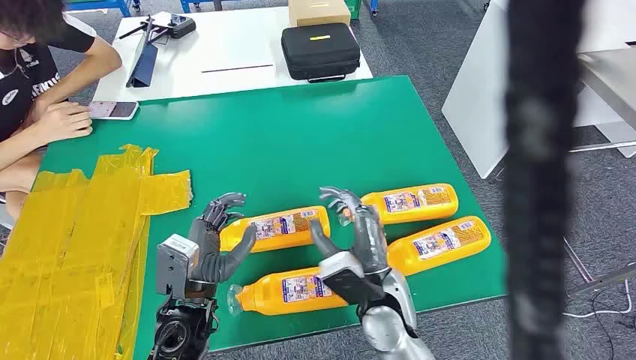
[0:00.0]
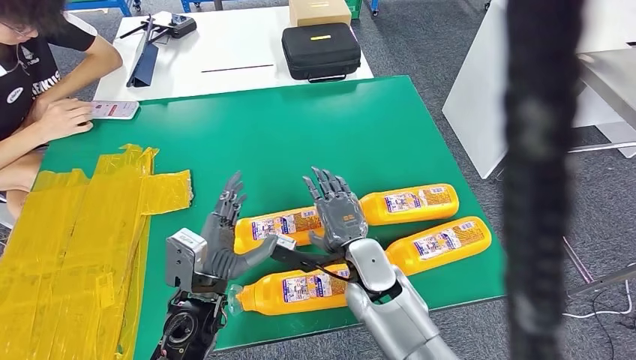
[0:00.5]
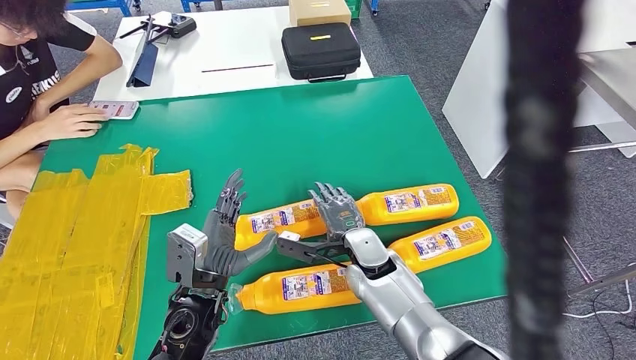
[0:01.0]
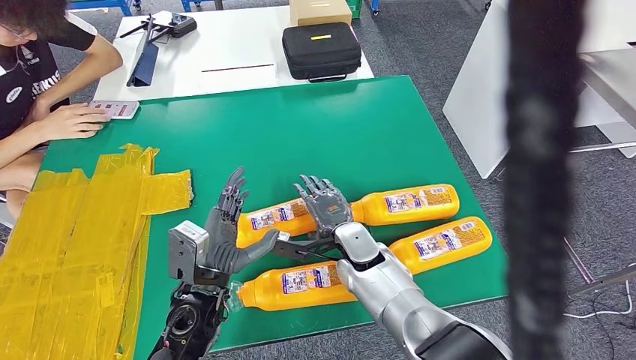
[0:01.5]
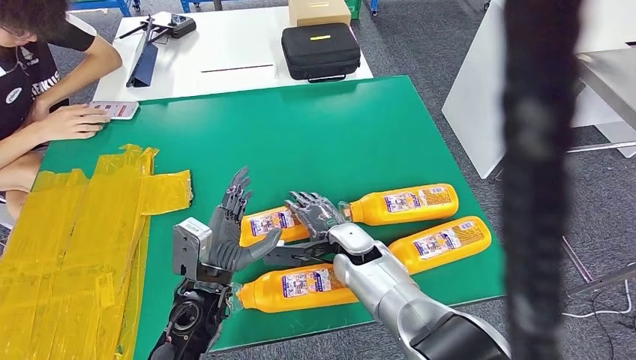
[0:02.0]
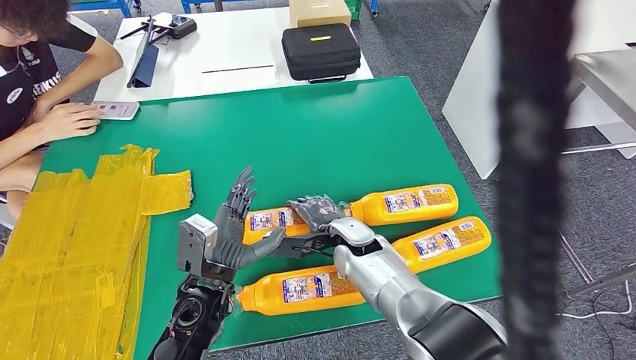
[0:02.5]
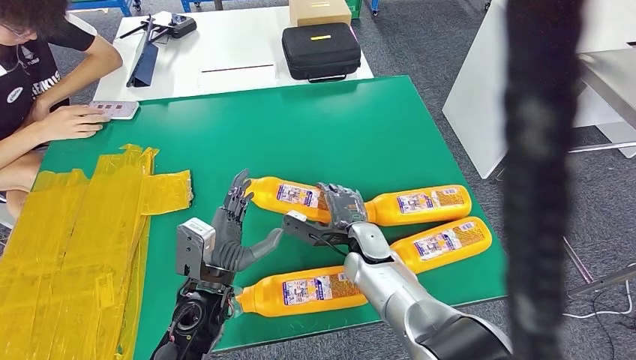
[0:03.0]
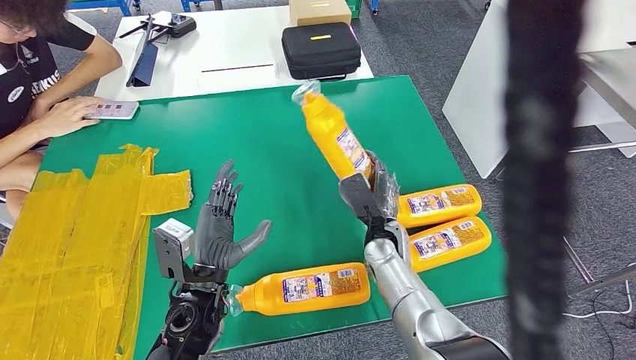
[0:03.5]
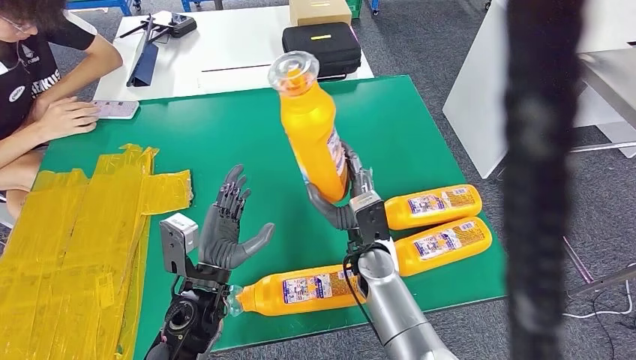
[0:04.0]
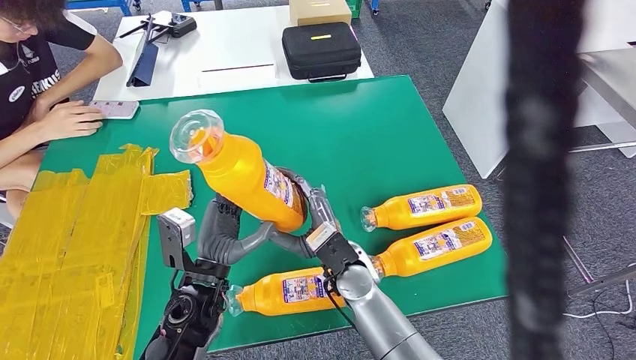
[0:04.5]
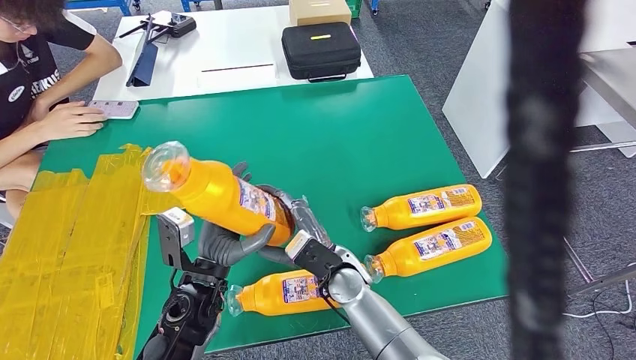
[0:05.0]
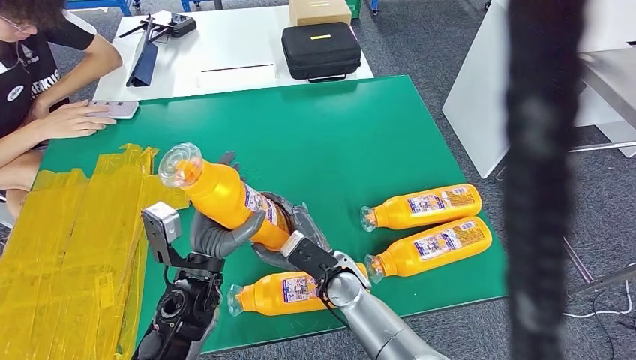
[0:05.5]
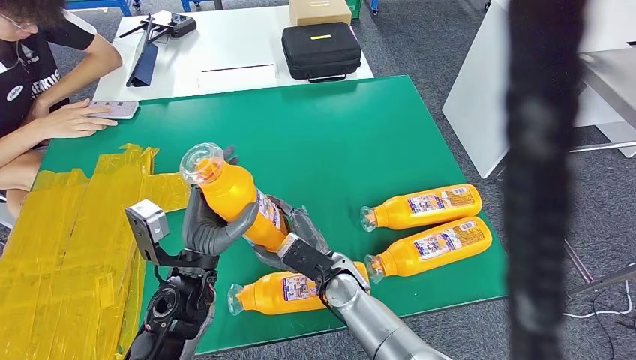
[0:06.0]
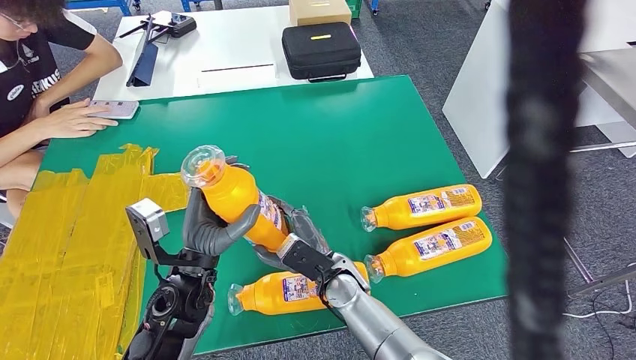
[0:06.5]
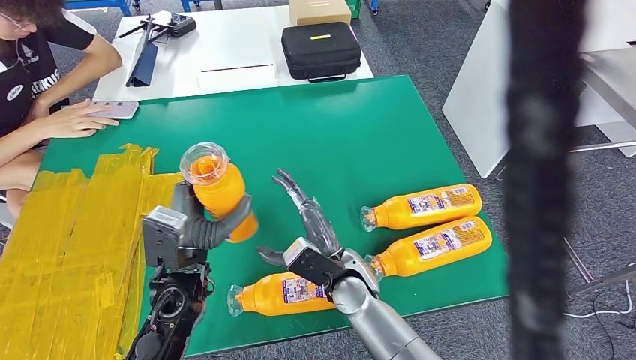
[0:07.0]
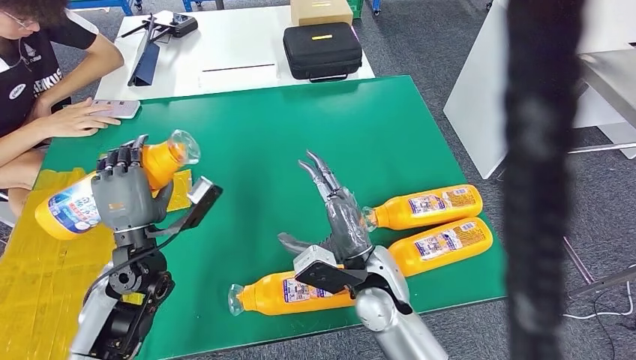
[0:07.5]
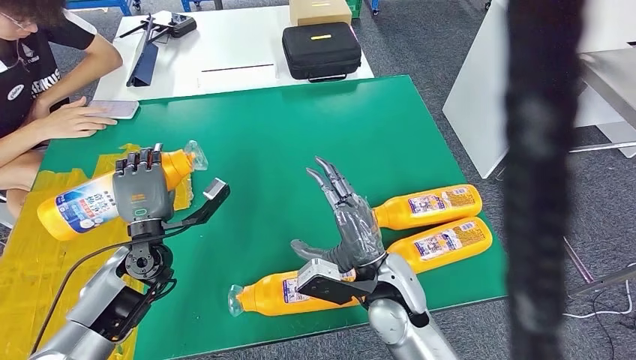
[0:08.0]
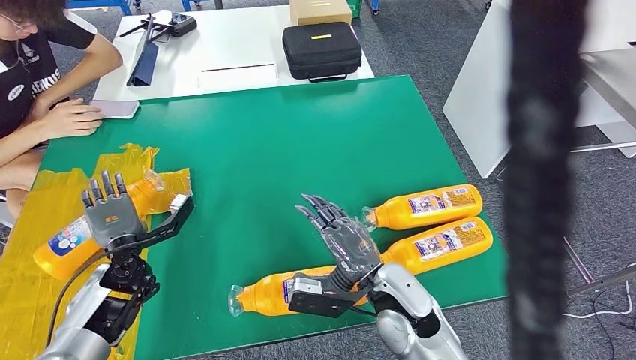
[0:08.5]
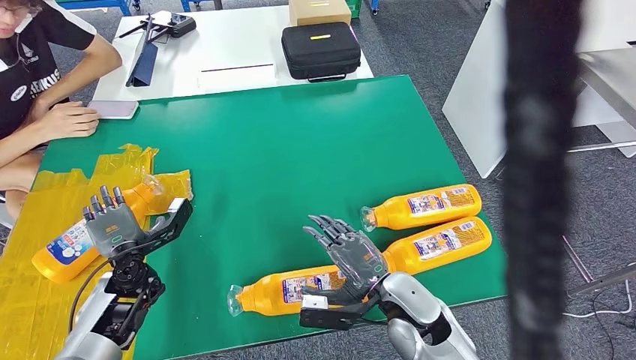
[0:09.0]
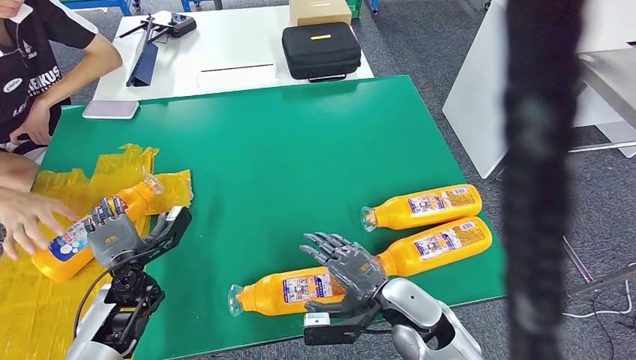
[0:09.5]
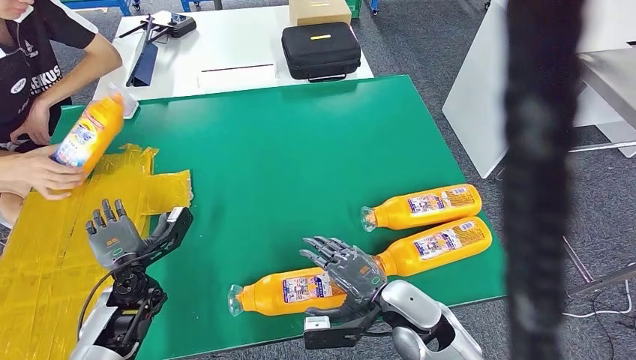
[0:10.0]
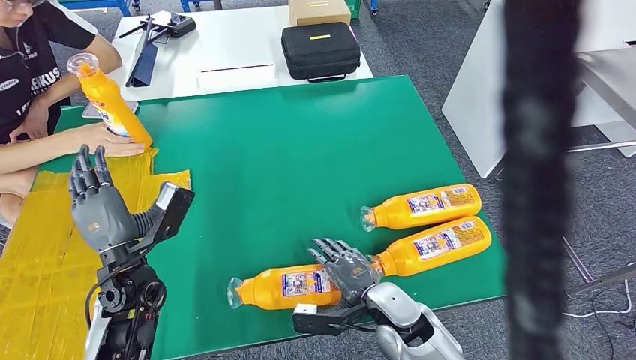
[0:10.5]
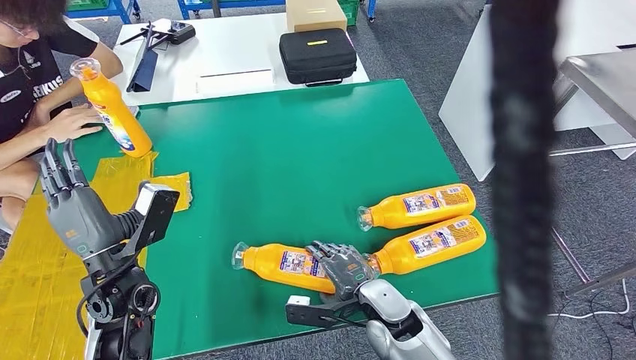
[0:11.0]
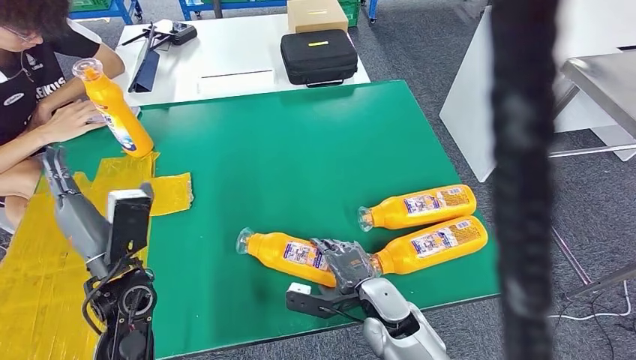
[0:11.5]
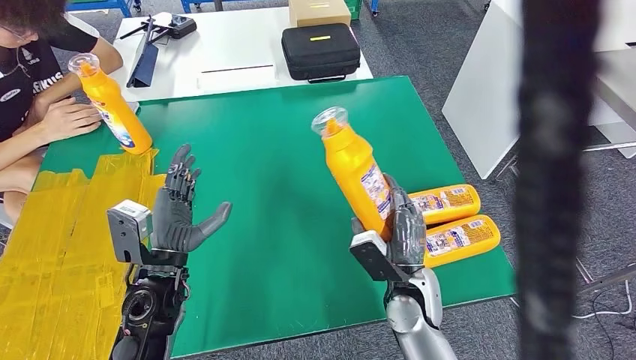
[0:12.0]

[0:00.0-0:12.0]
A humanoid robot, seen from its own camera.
Step, 0:00.0 to 0:04.0: Take the bottle from the table.
Step, 0:04.5 to 0:08.5: Flip the bottle to face forward.
0:02.0 to 0:04.0: The right hand shifts by roughly 5 cm.
0:04.0 to 0:06.0: The right hand travels to the left by about 5 cm.
0:06.0 to 0:08.0: The left hand is displaced to the left and forward by approximately 10 cm. Meanwhile the right hand goes about 10 cm upward, to the right and backward.
0:08.0 to 0:10.0: The two hands go roughly 5 cm downward.

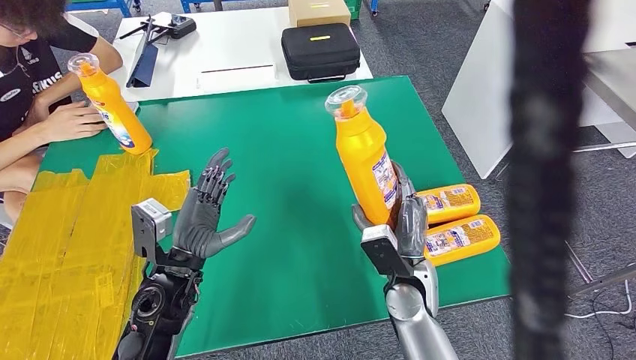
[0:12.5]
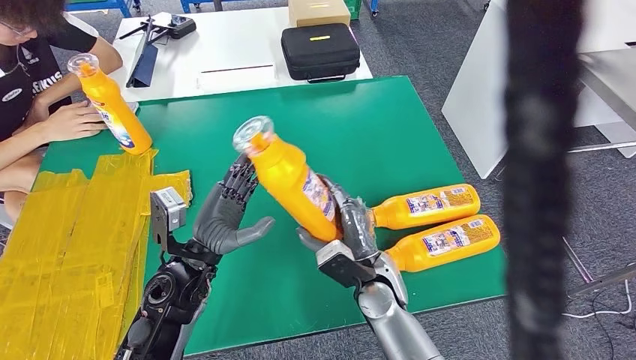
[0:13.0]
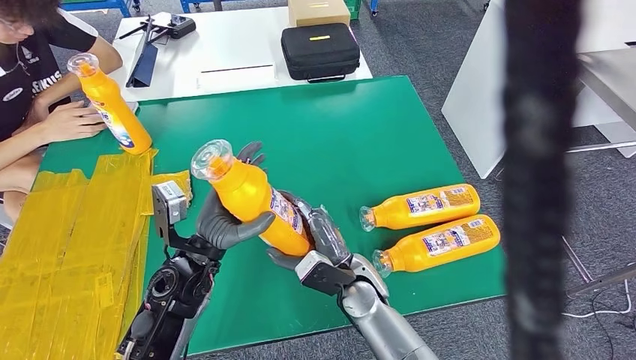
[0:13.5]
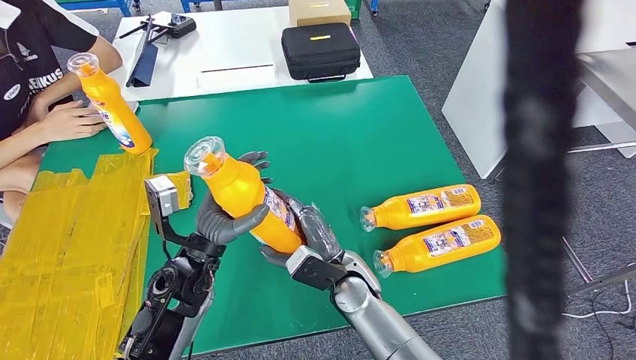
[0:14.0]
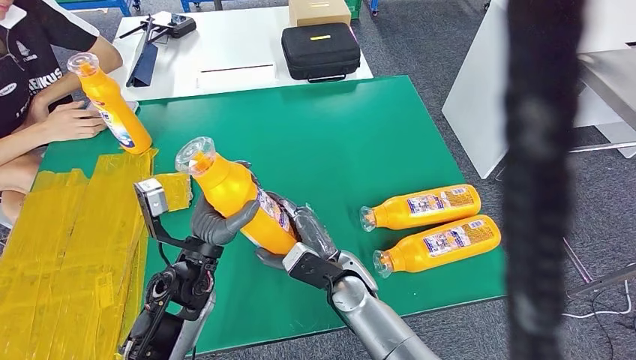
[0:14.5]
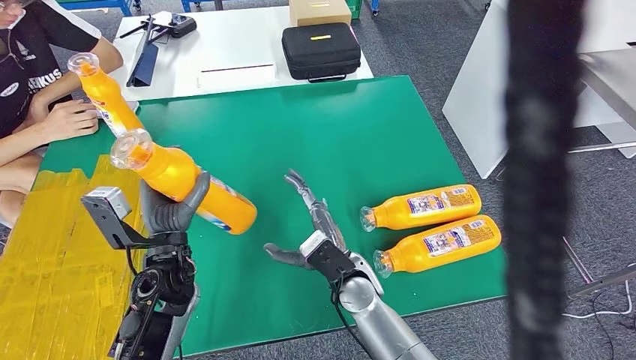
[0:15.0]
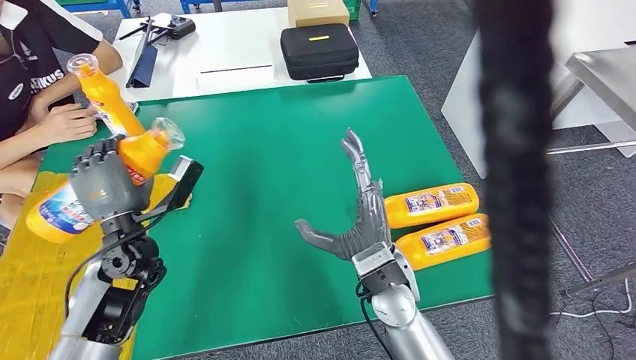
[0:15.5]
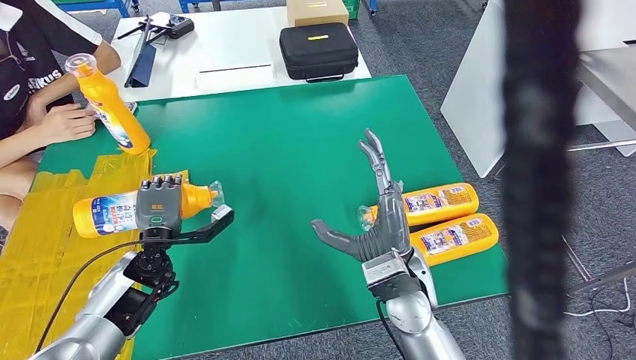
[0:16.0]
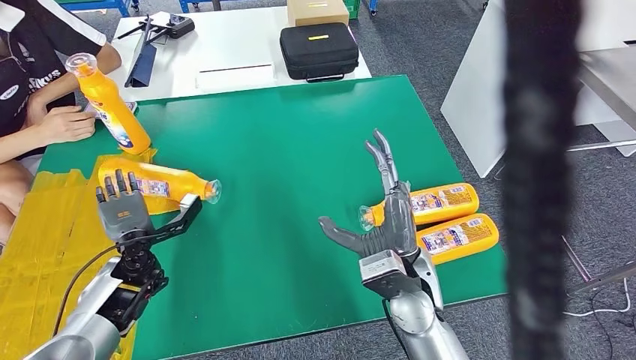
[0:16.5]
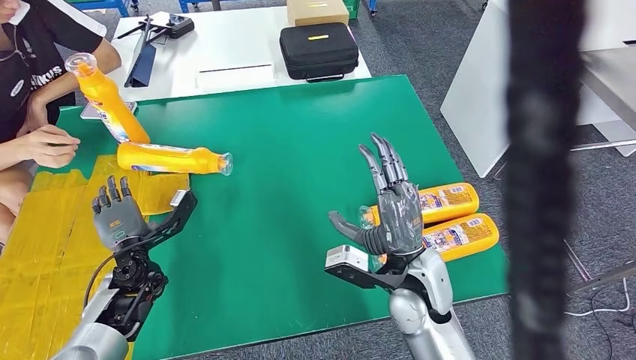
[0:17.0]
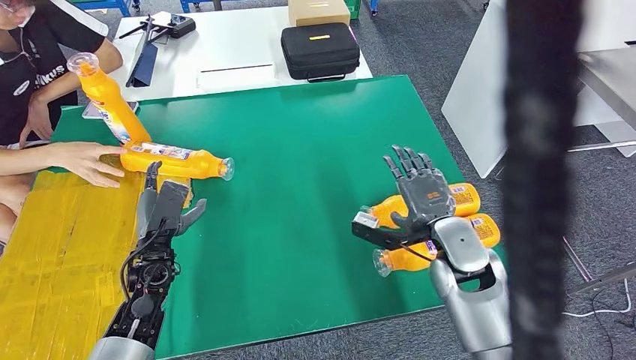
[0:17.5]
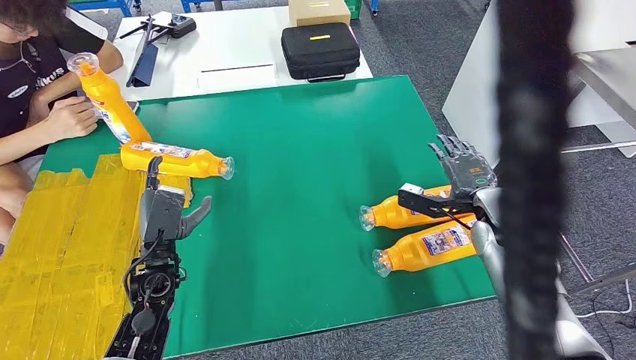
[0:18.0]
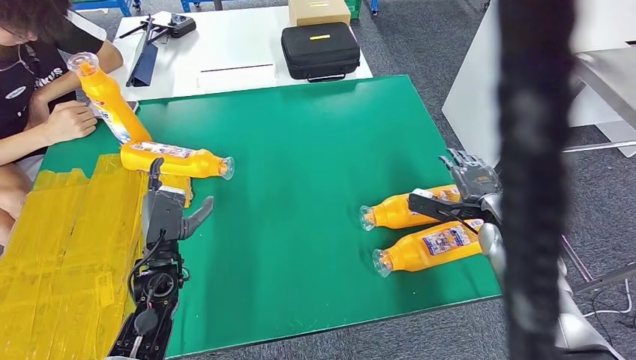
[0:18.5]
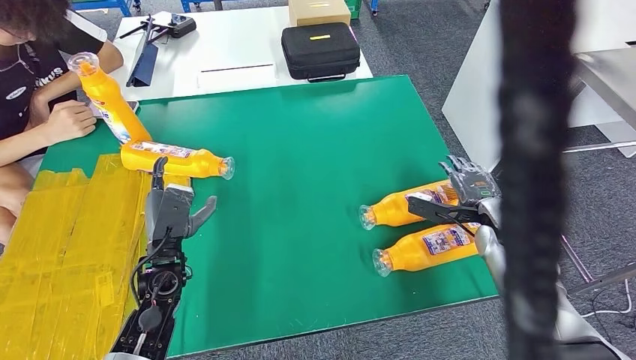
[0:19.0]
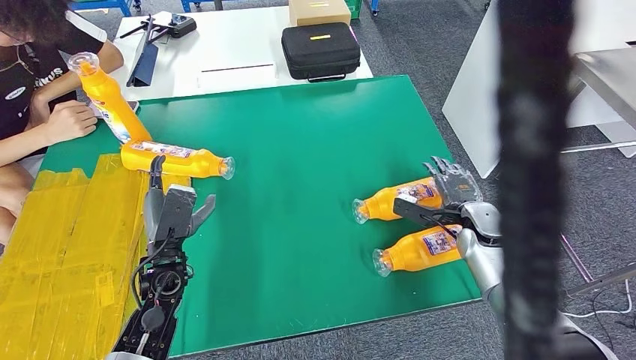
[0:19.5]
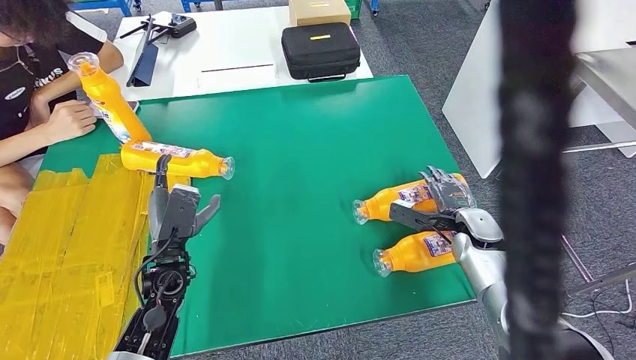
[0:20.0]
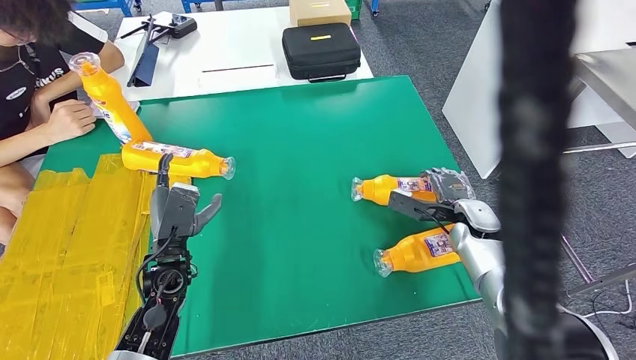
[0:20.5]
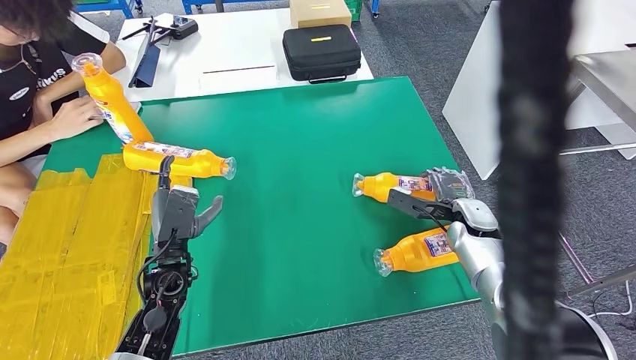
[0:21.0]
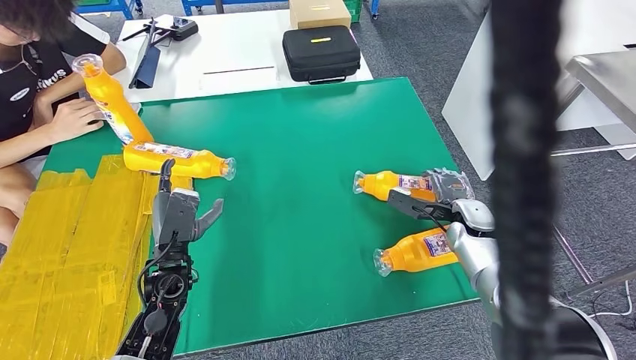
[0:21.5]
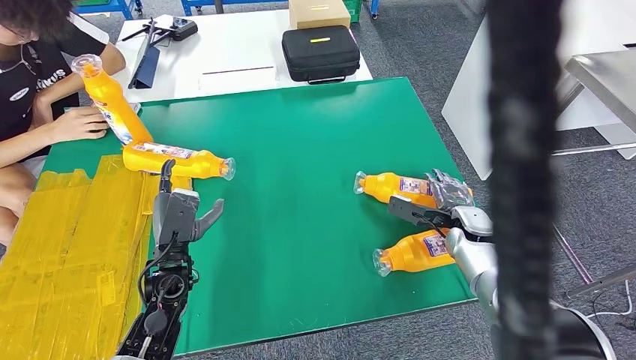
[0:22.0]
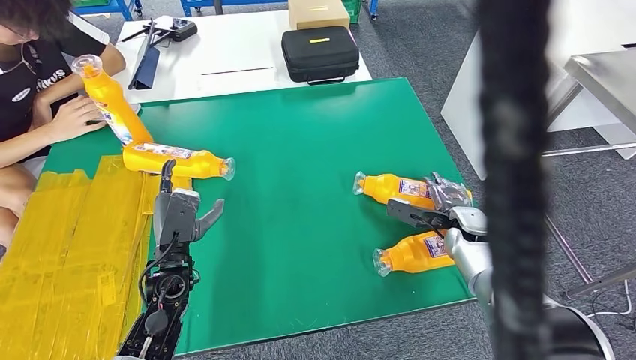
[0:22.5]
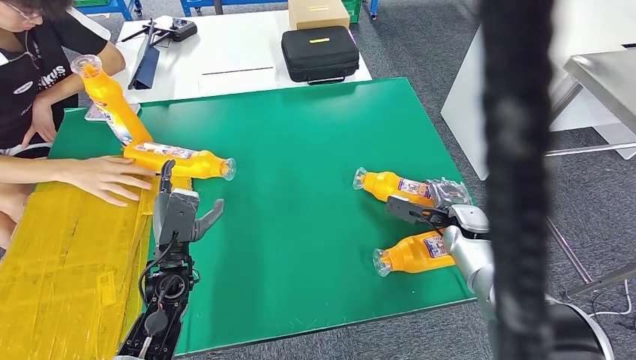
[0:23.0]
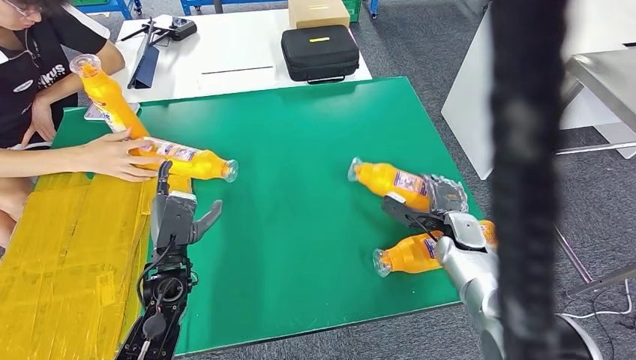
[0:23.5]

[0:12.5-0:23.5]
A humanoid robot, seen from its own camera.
Step, 0:14.5 to 0:17.5: Flip the bottle to face forward.
0:18.0 to 0:20.0: The right hand is displaced downward by roughly 10 cm.
0:20.0 to 0:23.5: The hands move only a little.
